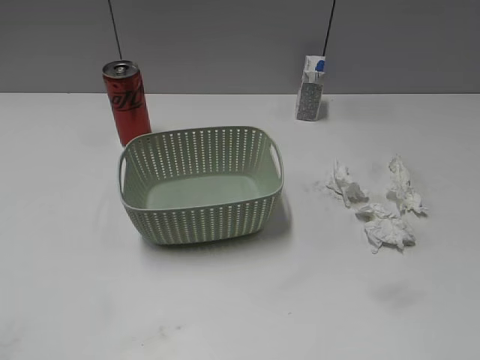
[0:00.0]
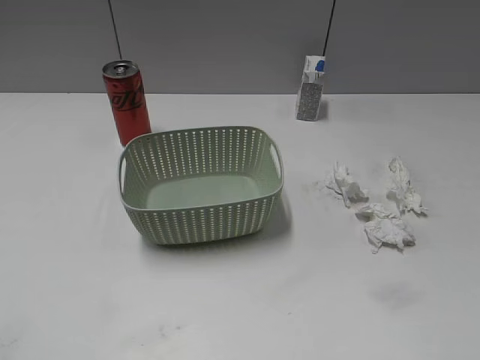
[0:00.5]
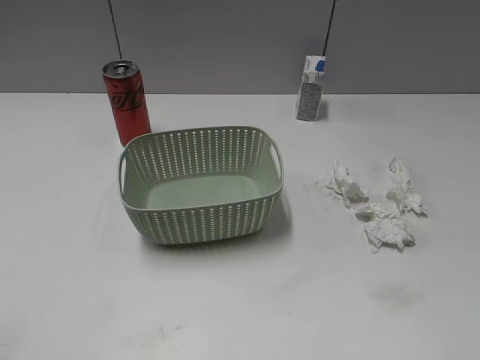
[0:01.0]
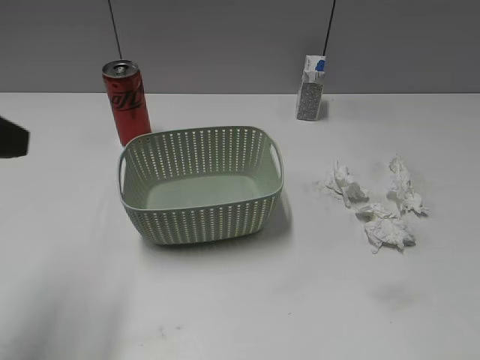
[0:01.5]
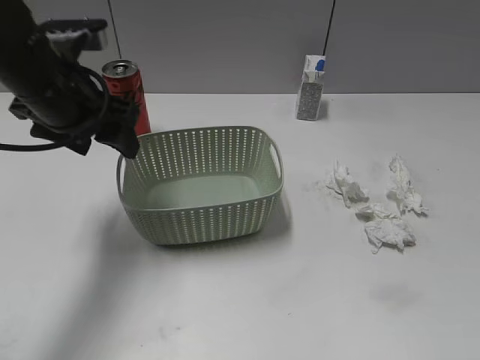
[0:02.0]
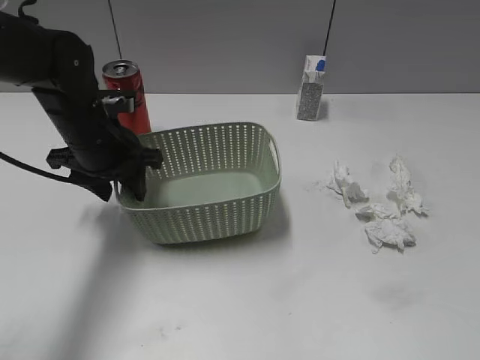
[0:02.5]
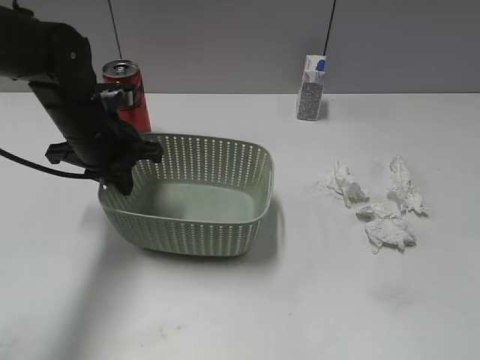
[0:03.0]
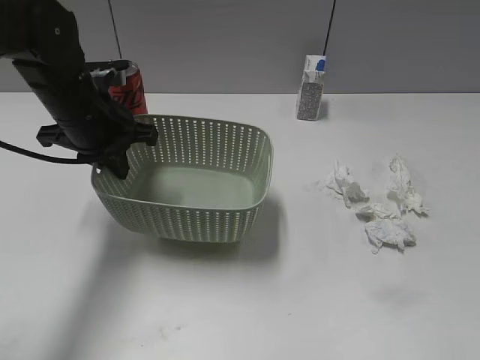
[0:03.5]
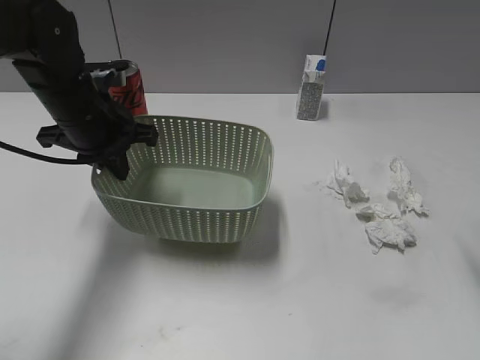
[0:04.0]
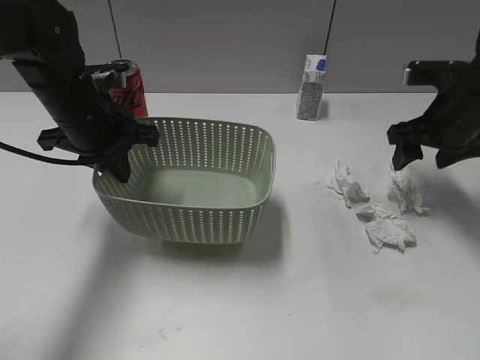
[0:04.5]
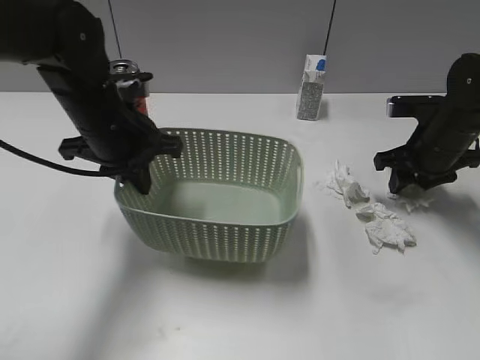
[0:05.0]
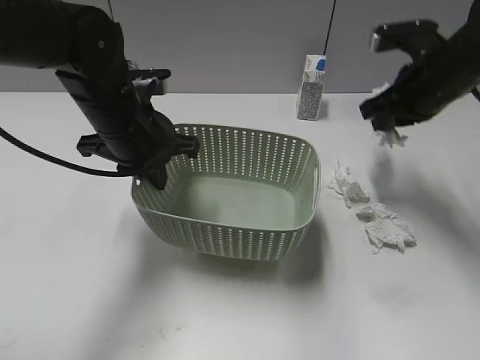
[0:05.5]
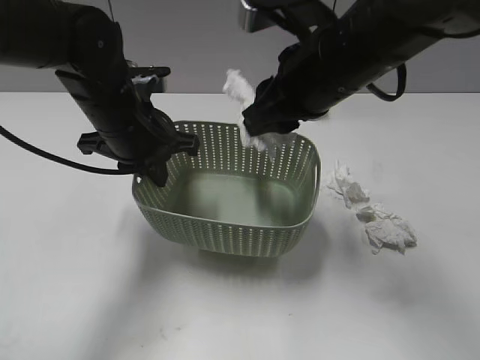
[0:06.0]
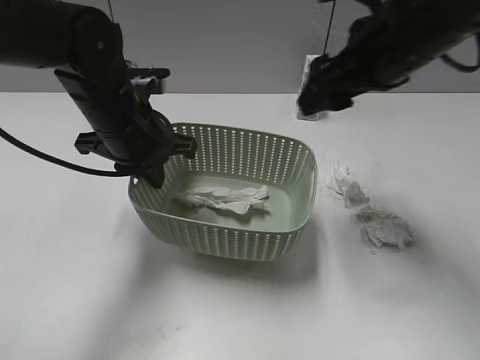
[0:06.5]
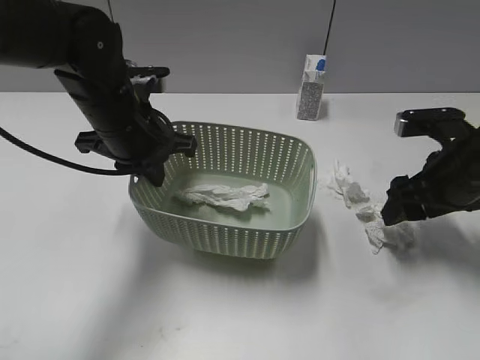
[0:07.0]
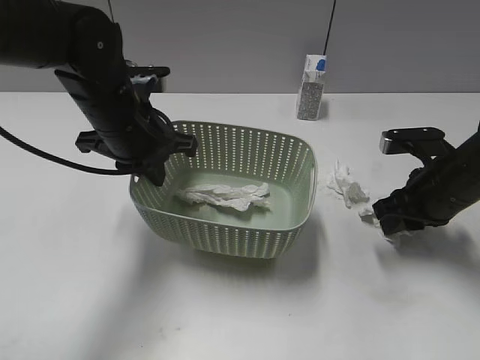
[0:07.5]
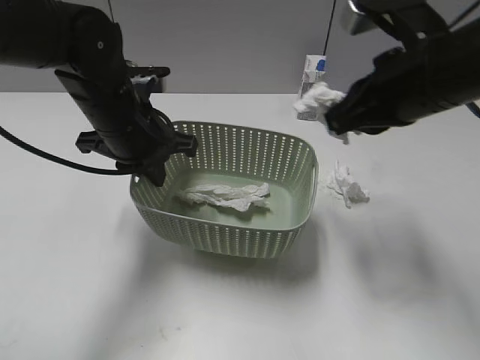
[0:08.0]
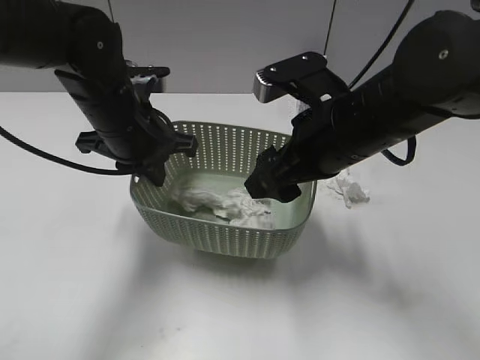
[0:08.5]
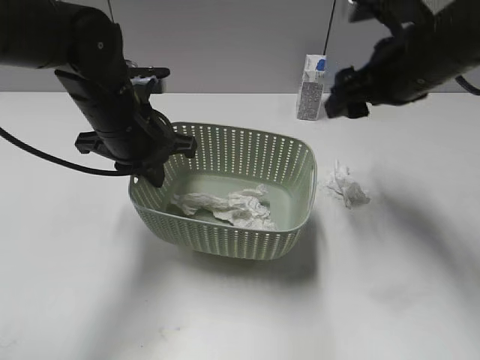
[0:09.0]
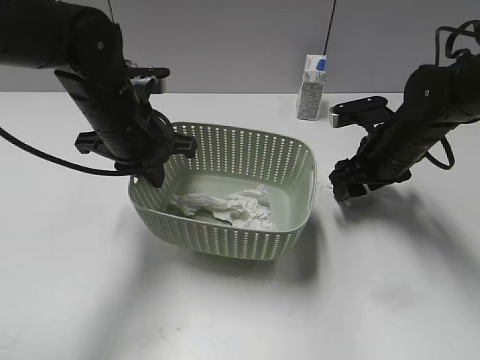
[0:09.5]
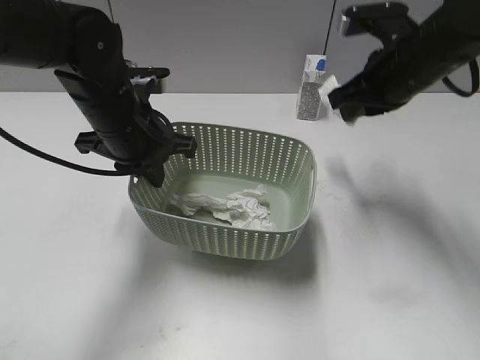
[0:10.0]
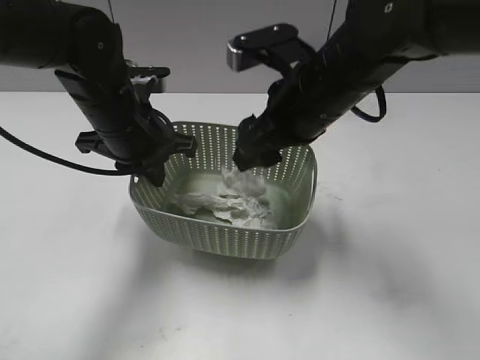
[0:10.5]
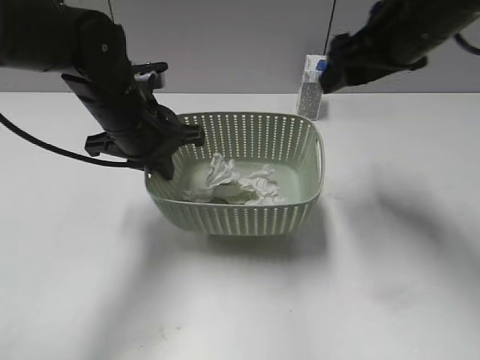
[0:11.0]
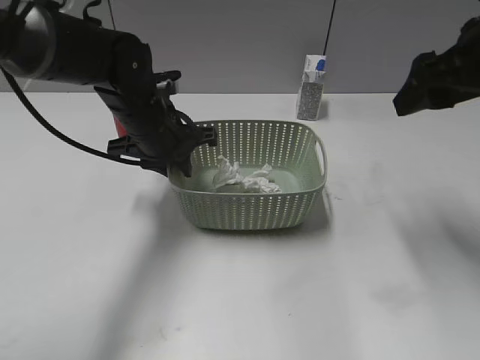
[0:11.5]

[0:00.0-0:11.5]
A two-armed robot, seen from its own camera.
Step, 0:01.5 to 0:02.5: Grasp the basket with left gripper.
Step, 0:03.0 to 0:03.5: Lift the basket with left gripper.
Step, 0:04.0 to 0:05.0: Grasp the waste paper with right gripper.
Step, 0:05.5 to 0:06.0: Place the waste paper in the basket with right gripper.
Step, 0:06.5 to 0:07.5: Grasp the waste paper with right gripper.
Step, 0:08.0 to 0:08.5: Place the waste paper in the basket with right gripper.
Step, 0:09.0 to 0:09.5: Grasp the waste paper with right gripper.
Step, 0:10.0 to 0:10.5: Place the waste paper in the basket with right gripper.
0:02.0 to 0:04.0: The right gripper is displaced forward by approximately 20 cm. Meanwhile the left gripper moves downward, roughly 5 cm, and closes.
0:04.0 to 0:06.0: The right gripper heads to the left and forward, covering some 20 cm, and closes its fingers. The left gripper changes place by some 5 cm.
0:06.0 to 0:07.5: The right gripper is displaced to the right and downward by roughly 20 cm, and opens, then closes once more.
0:07.5 to 0:09.5: The right gripper shifts roughly 5 cm forward, reaches some 15 cm to the left, then returns, and opens its fingers.
0:09.5 to 0:11.5: The right gripper is displaced upward by approximately 20 cm, and closes and opens again, while the left gripper shifts by roughly 5 cm.

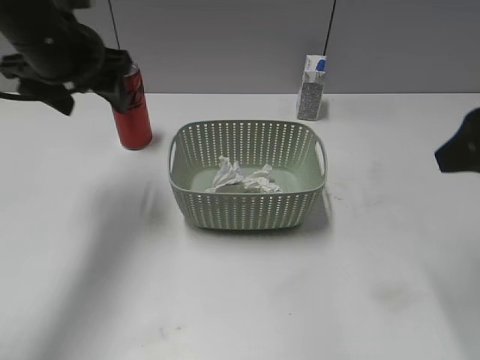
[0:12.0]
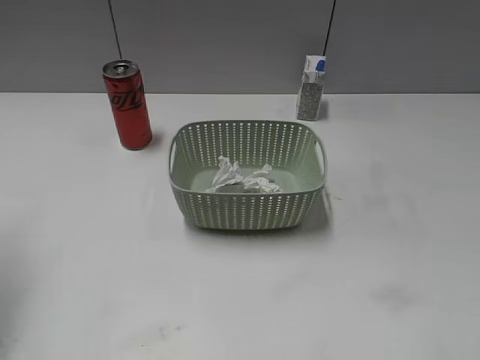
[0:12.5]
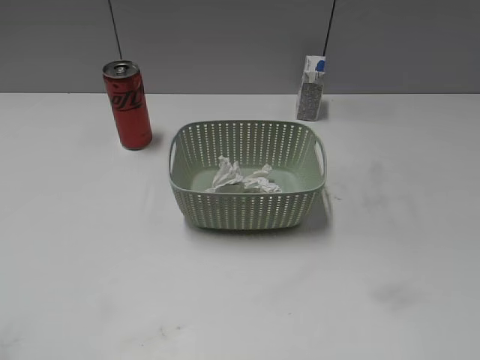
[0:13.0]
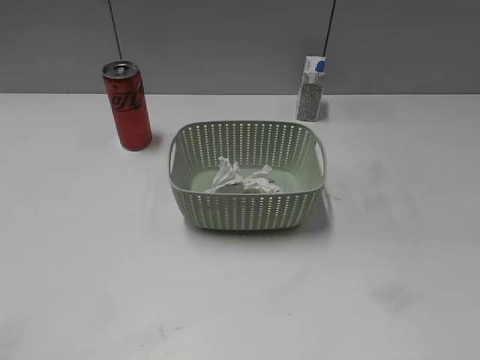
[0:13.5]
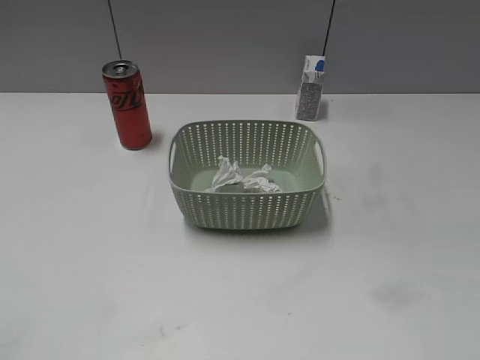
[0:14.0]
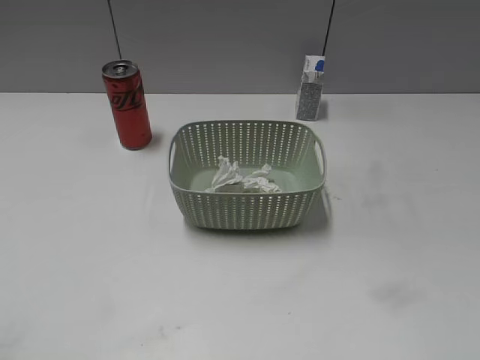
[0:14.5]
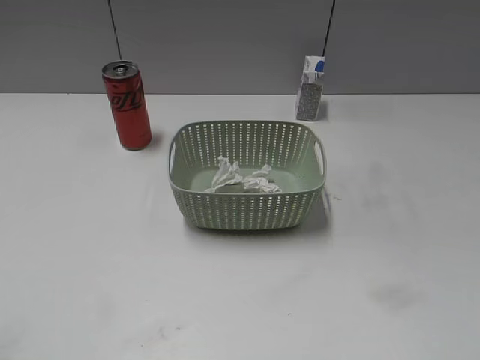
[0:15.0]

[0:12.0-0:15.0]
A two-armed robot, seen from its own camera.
0:12.0 to 0:13.5: The left gripper heads backward, covering approximately 35 cm, while the right gripper shifts some 20 cm backward.
0:13.5 to 0:15.0: The two grippers keep their place.

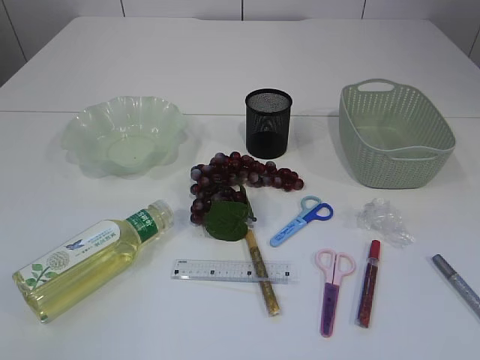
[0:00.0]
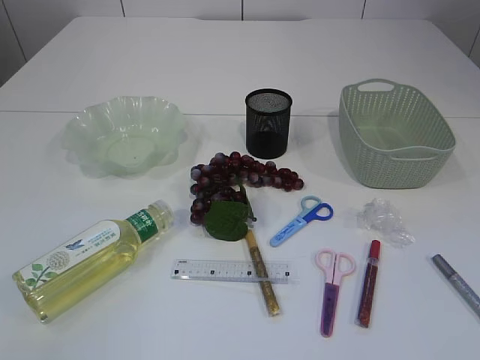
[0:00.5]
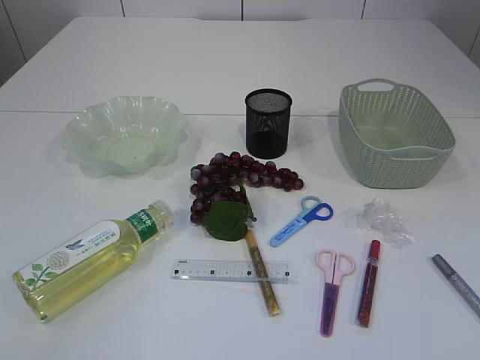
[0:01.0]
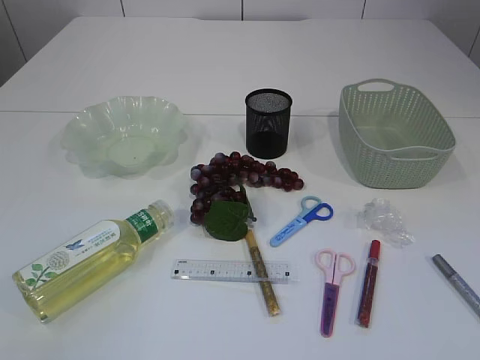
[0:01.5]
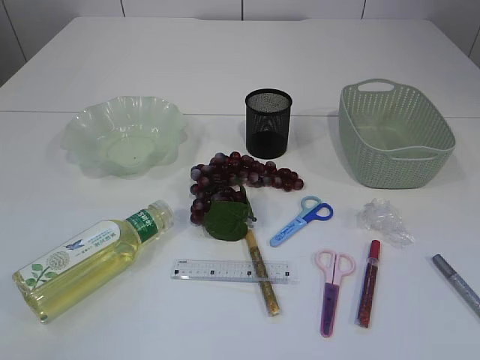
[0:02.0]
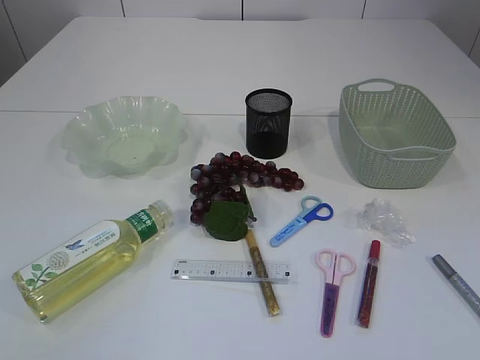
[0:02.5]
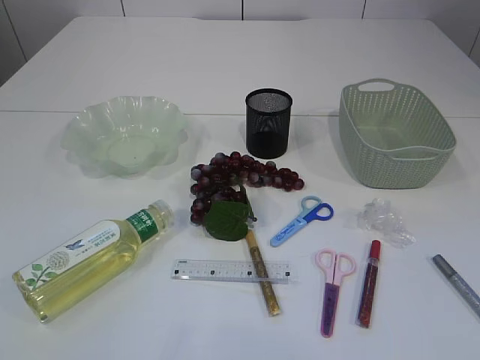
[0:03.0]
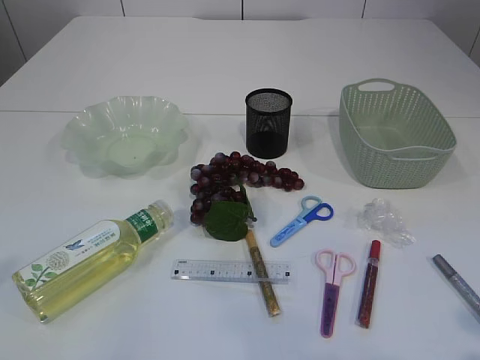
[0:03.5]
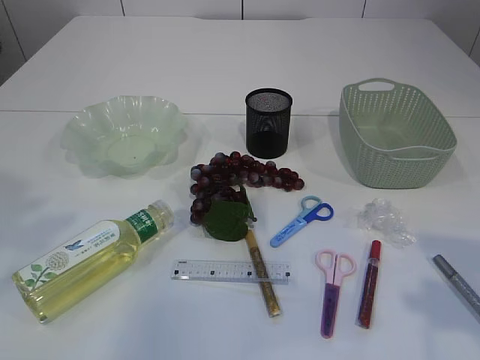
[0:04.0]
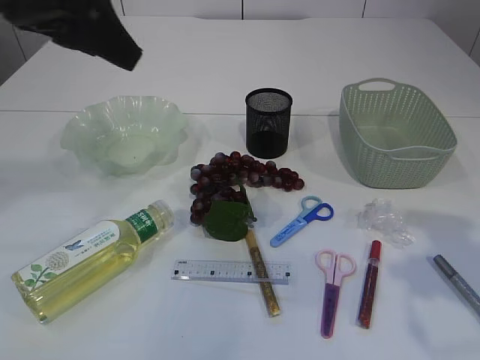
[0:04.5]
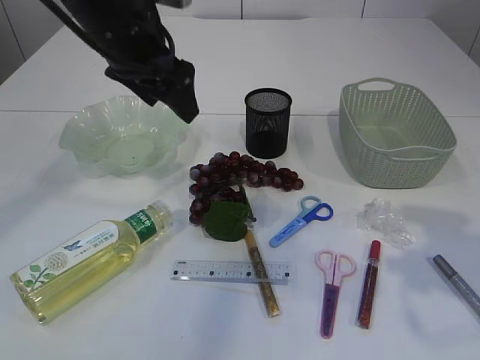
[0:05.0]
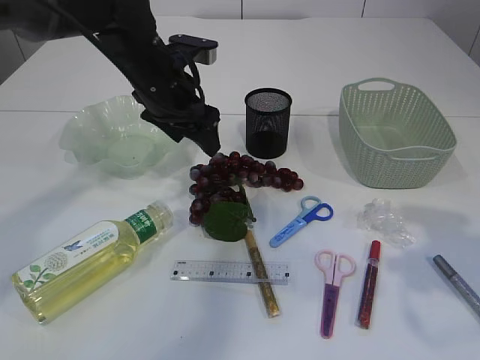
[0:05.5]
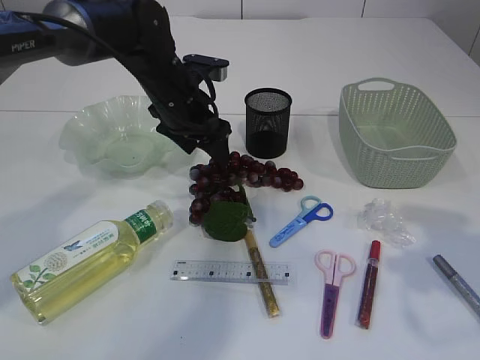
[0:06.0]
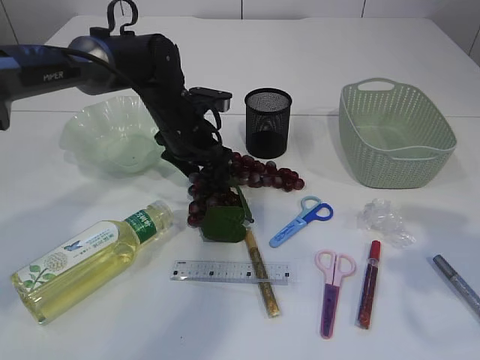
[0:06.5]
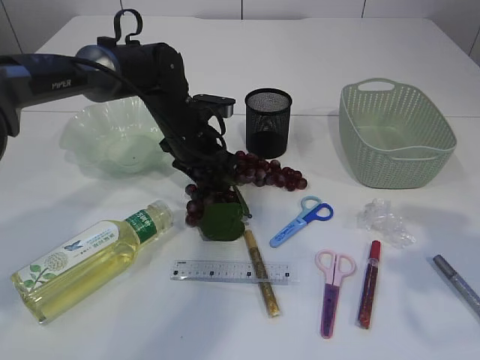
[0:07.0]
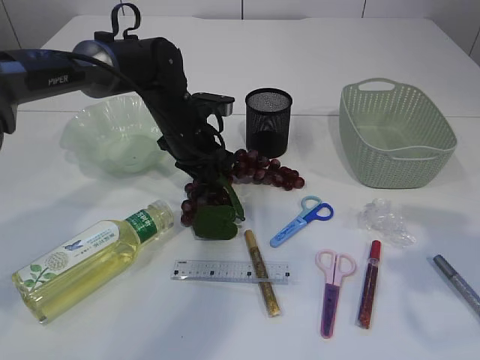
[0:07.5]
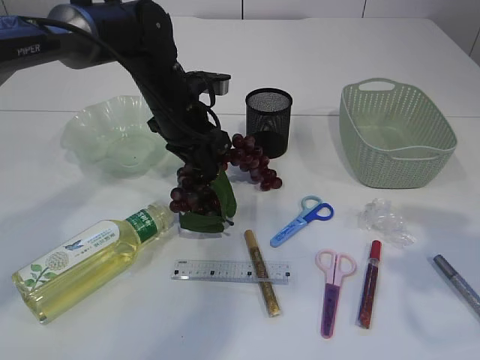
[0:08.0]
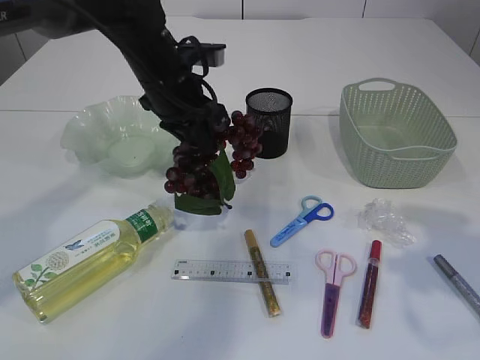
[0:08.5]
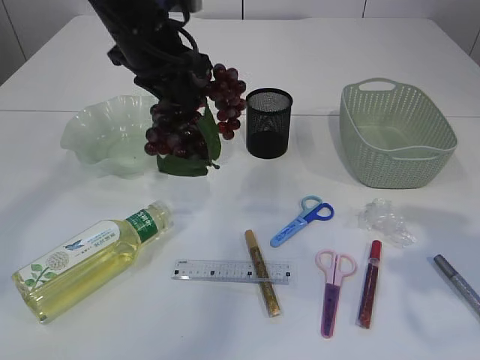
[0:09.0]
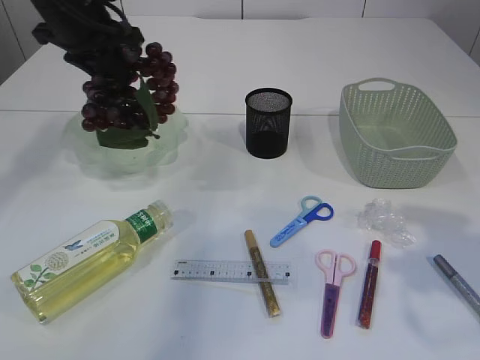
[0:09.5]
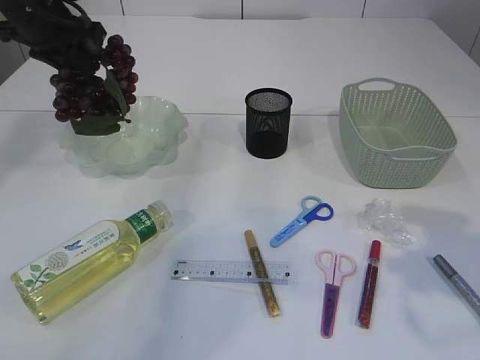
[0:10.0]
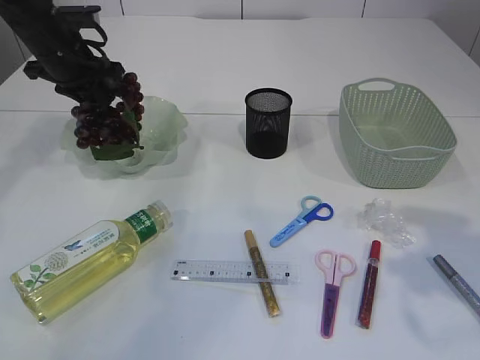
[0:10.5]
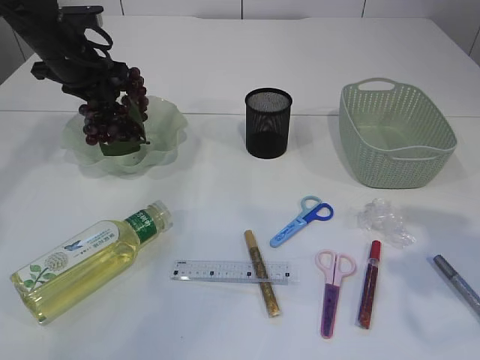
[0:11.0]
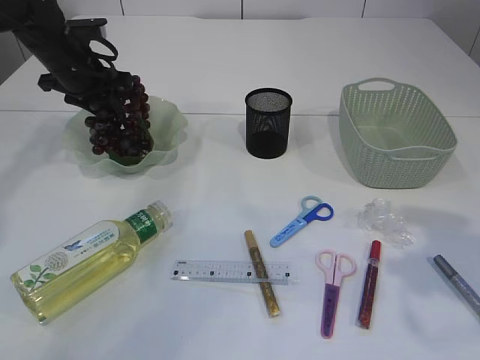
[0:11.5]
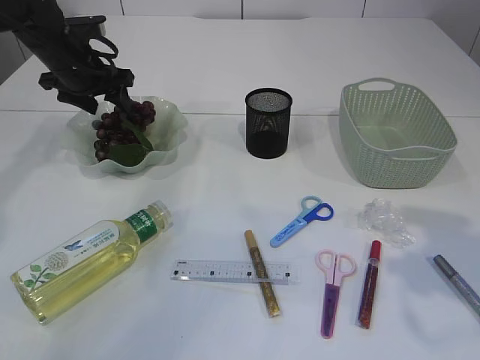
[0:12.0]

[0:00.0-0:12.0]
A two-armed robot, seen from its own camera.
Step, 0:00.0 to 0:08.5: Pick up the grapes.
0:02.0 to 0:04.0: The left gripper travels forward and upward by about 25 cm, and opens its fingers. The right gripper is displaced forward by about 15 cm.
0:04.0 to 0:06.0: The left gripper travels forward, downward and to the right by roughly 35 cm, while the right gripper shifts about 5 cm forward.
0:06.0 to 0:08.0: The left gripper closes up.
0:08.0 to 0:10.0: The left gripper travels to the left and upward by some 20 cm.
0:10.0 to 0:12.0: The left gripper shifts some 10 cm downward, and opens.
